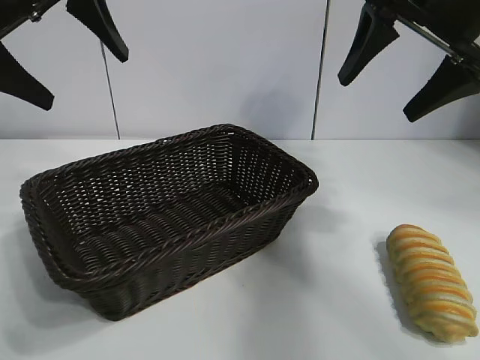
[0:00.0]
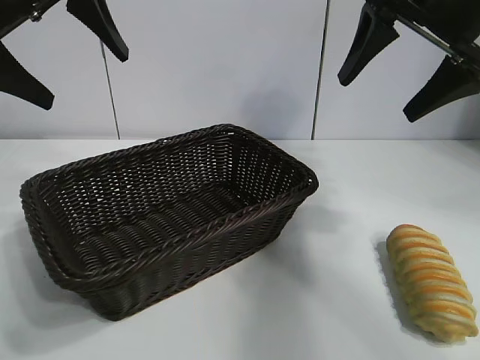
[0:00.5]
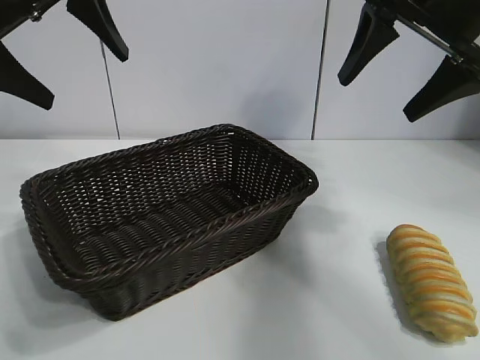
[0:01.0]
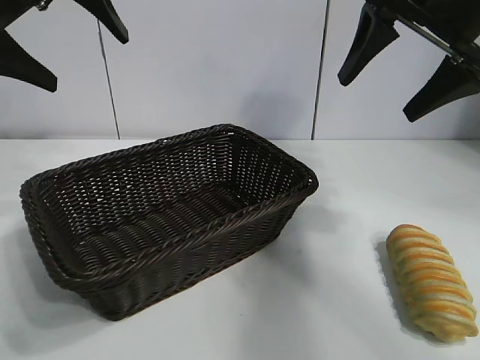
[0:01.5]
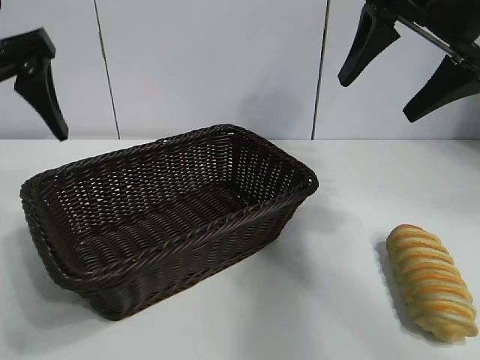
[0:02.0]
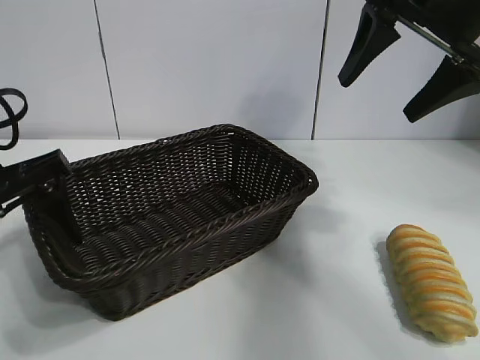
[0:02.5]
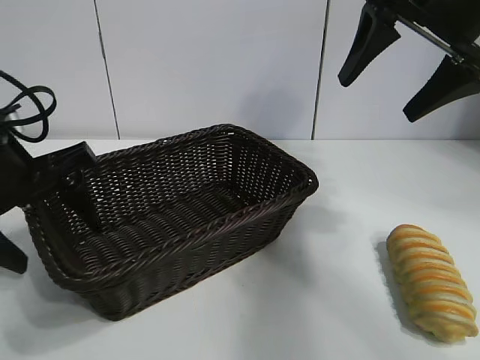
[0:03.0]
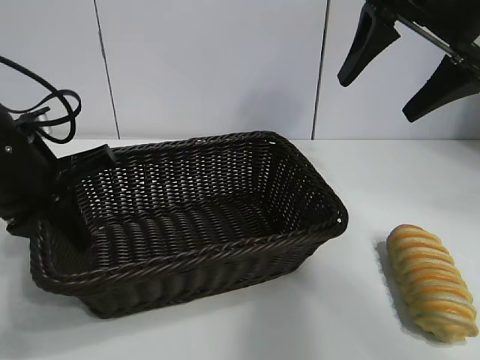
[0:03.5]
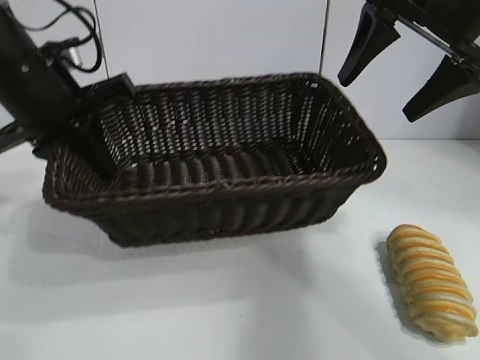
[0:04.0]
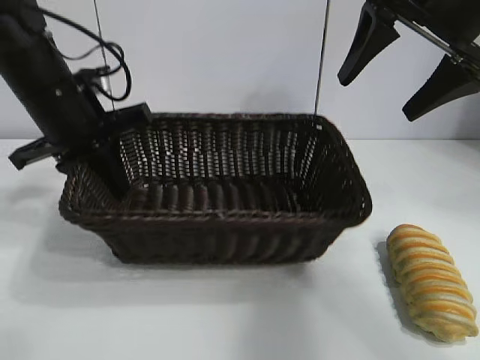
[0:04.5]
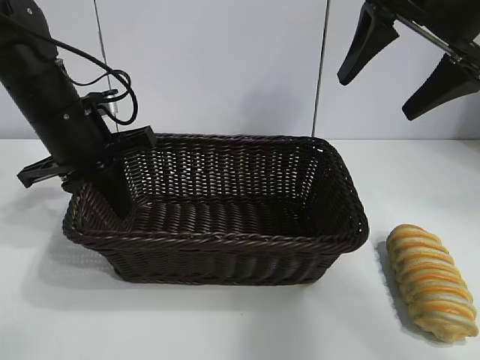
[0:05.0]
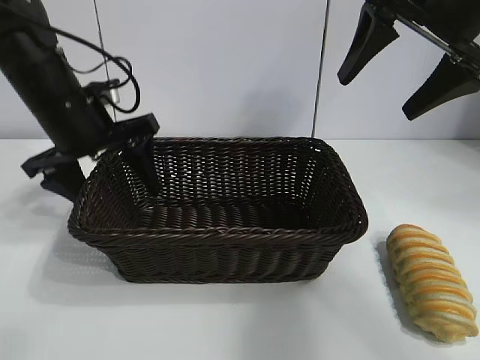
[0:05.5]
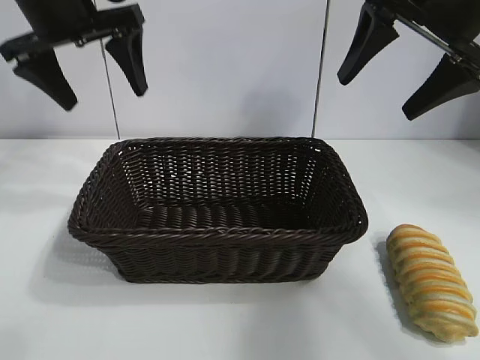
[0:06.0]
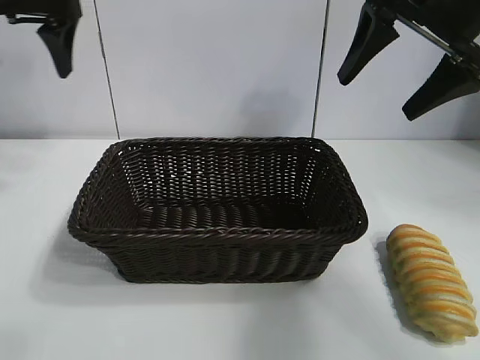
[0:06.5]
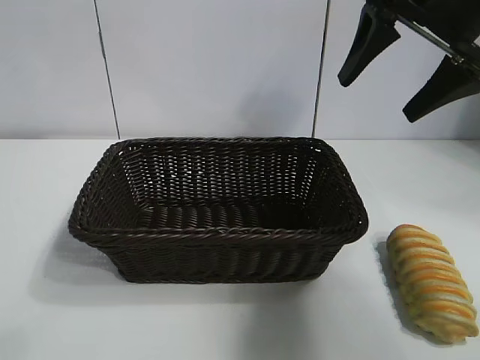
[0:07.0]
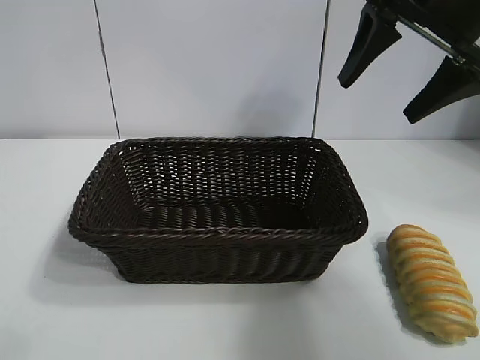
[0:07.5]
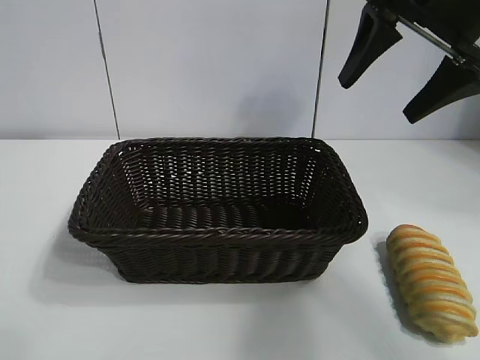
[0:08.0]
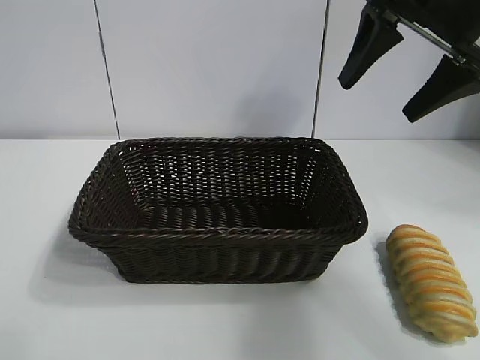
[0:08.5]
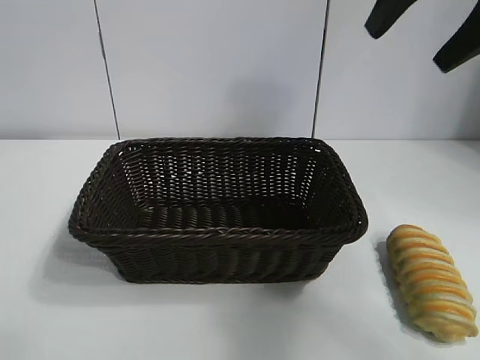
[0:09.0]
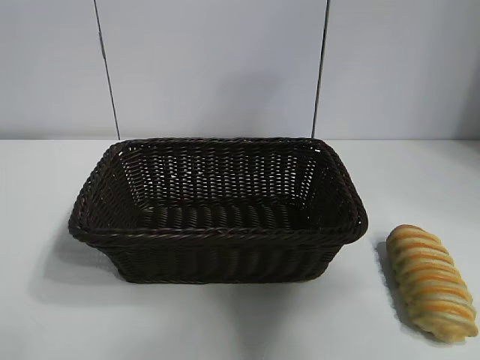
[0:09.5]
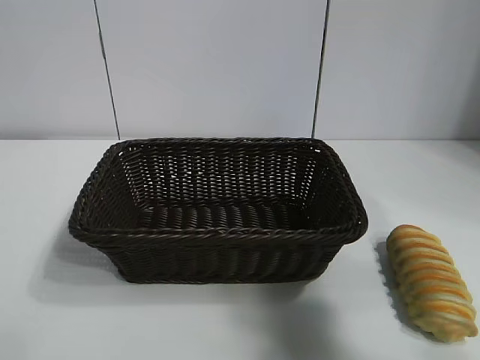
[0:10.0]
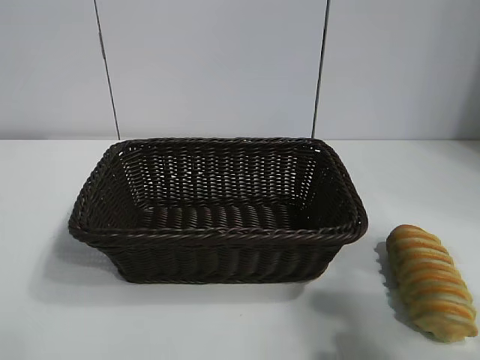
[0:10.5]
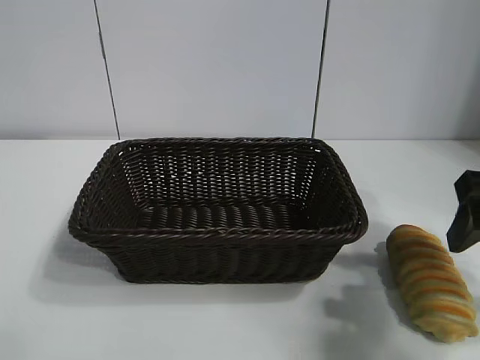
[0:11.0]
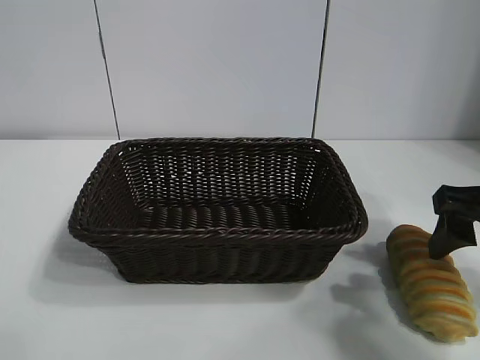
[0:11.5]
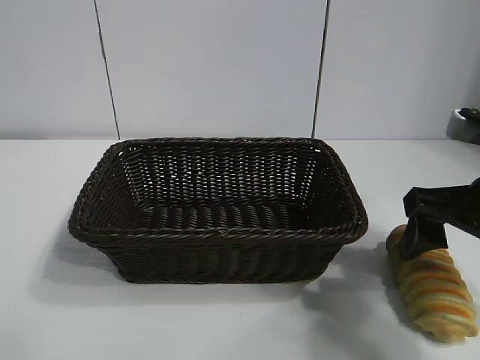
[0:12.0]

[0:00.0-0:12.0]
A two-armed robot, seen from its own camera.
Task of the whole recording: pick up the long bread and put it into the basket.
Step, 0:01.5 to 0:03.0: Grasp the basket with the left gripper.
Step, 0:03.5 to 0:05.0: Place the basket in the center of the table with the left gripper.

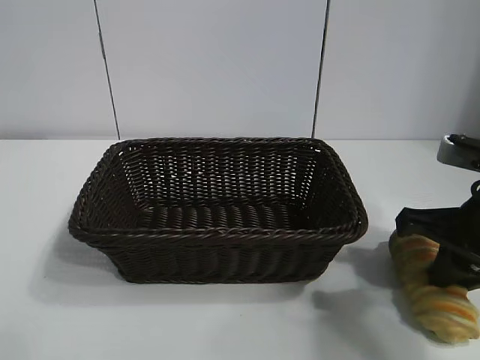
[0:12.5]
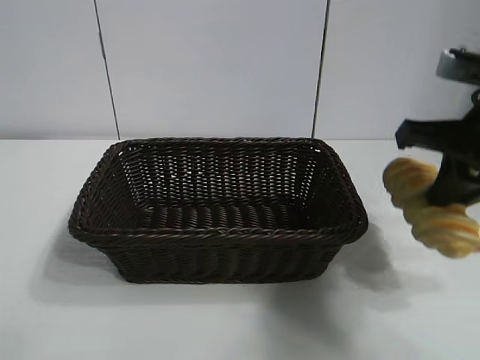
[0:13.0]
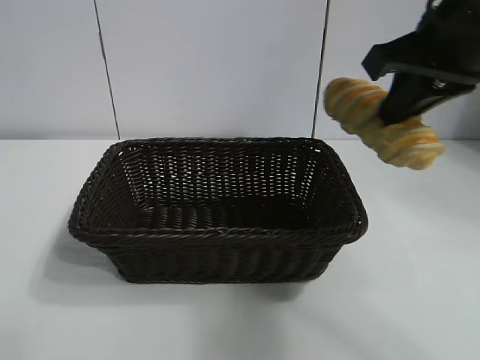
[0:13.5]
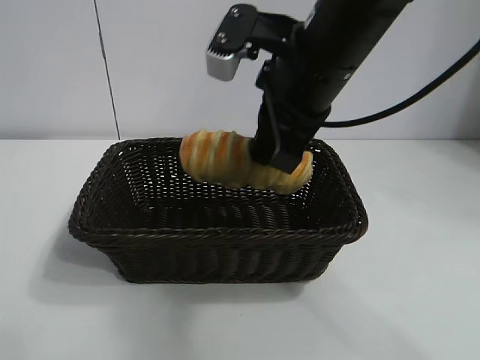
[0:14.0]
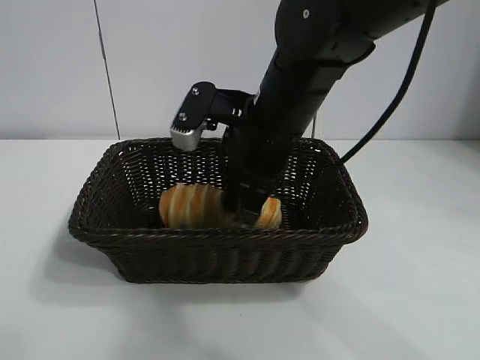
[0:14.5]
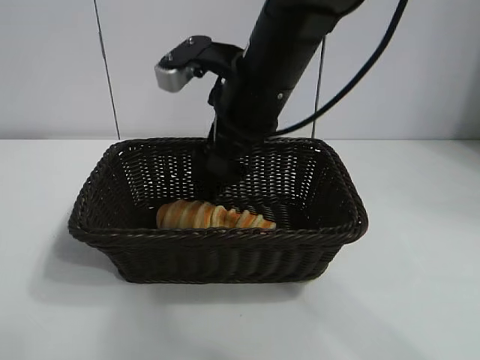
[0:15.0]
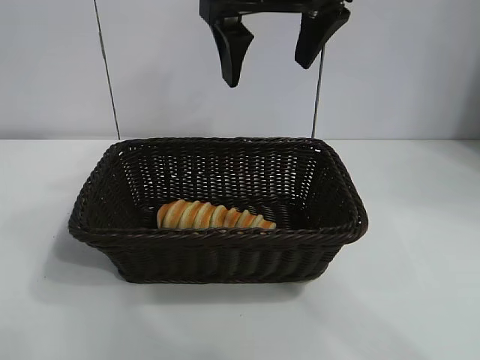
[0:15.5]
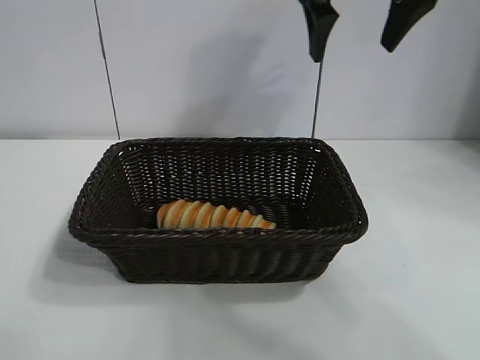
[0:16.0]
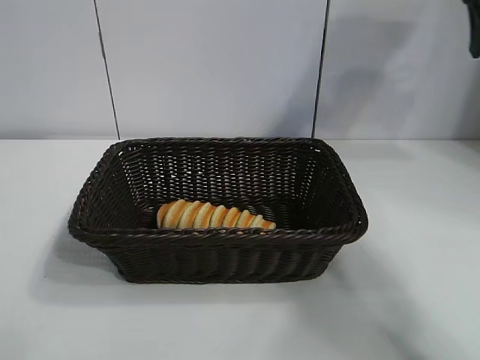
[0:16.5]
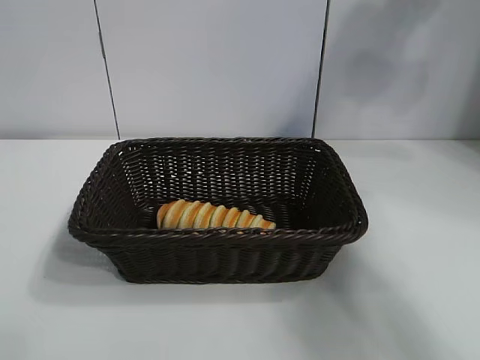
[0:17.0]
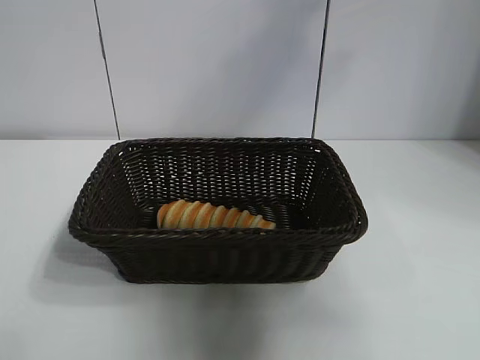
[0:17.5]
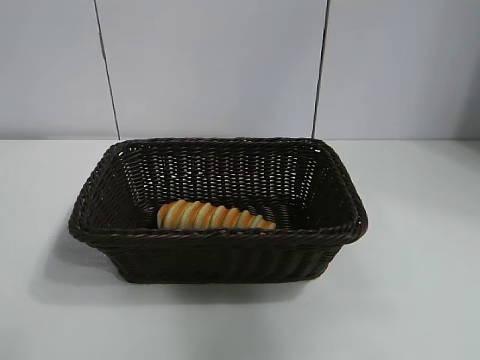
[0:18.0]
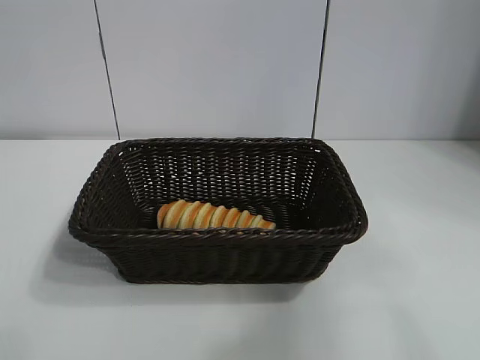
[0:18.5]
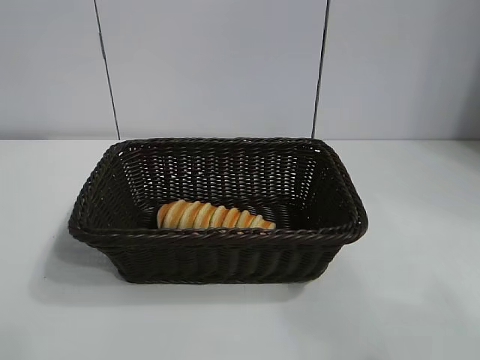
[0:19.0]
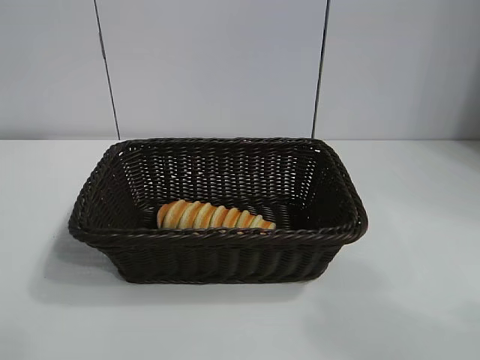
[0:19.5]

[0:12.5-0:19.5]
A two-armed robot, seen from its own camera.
Task of the whole recording: pick up the long bread and put it into the basket.
Step, 0:13.0 to 0:15.0: Place the long bread in the basket with right gripper.
